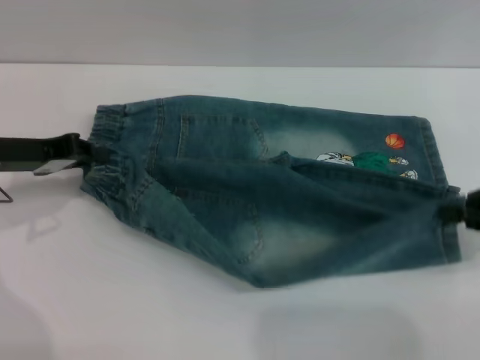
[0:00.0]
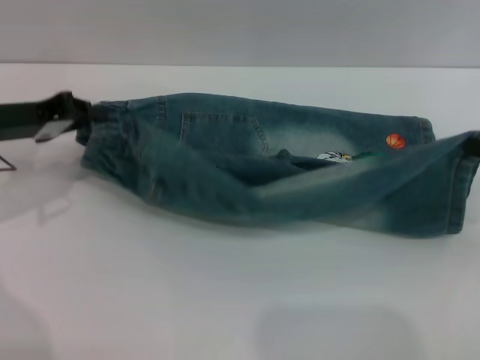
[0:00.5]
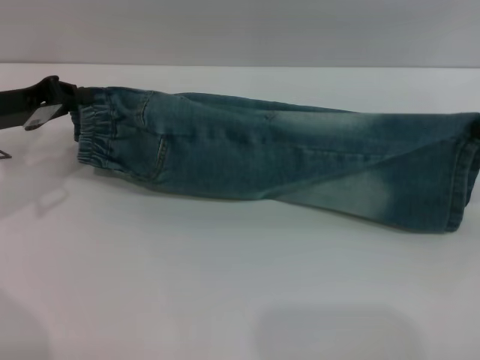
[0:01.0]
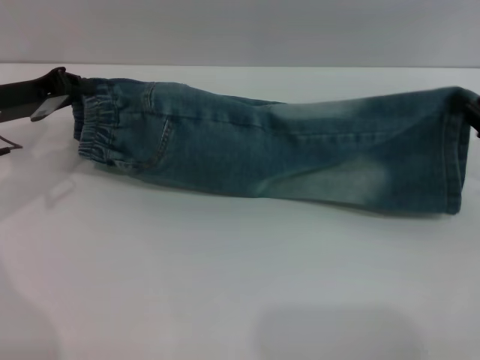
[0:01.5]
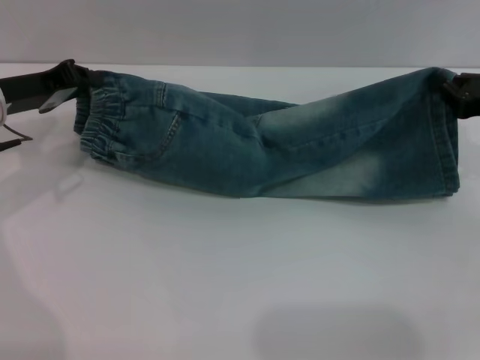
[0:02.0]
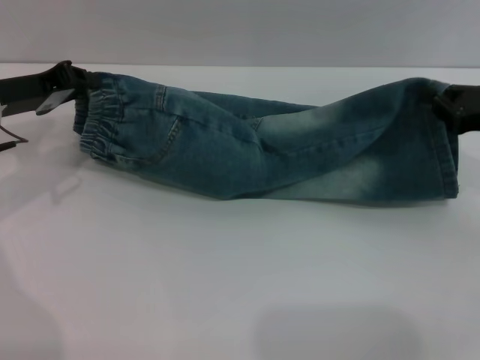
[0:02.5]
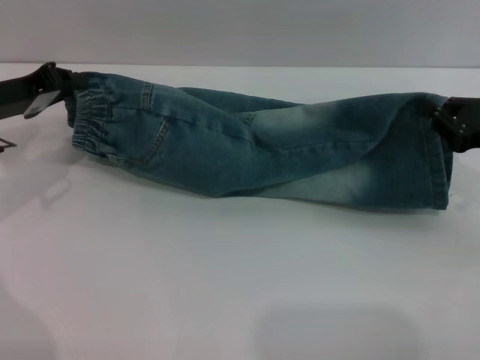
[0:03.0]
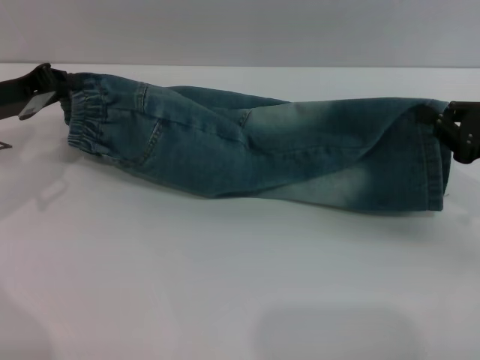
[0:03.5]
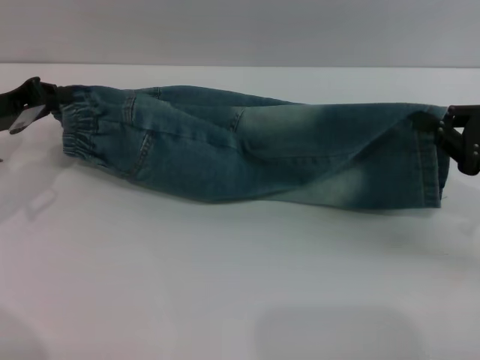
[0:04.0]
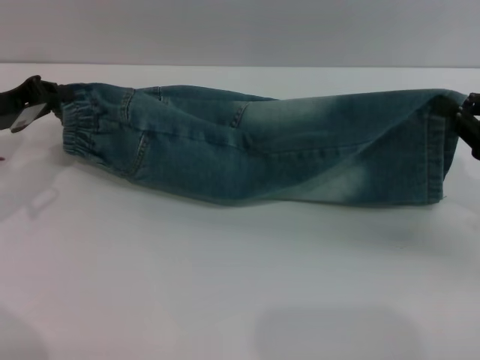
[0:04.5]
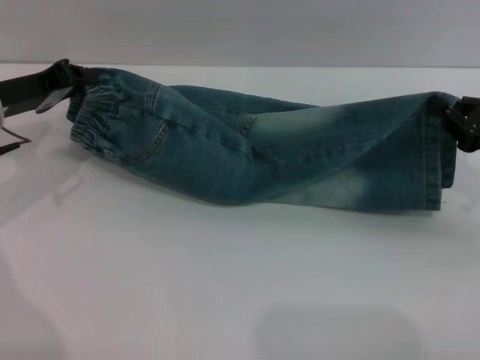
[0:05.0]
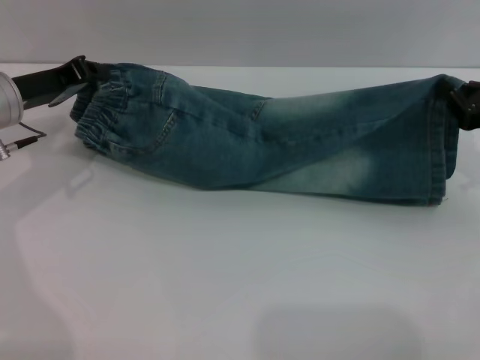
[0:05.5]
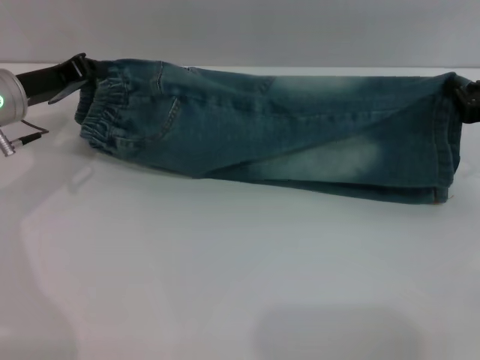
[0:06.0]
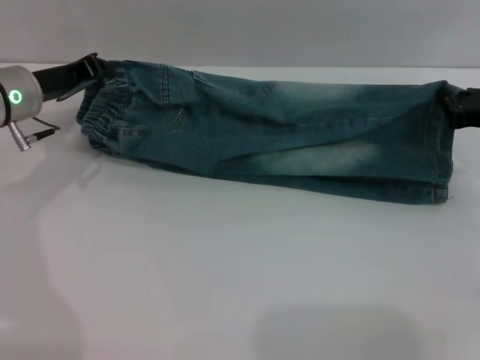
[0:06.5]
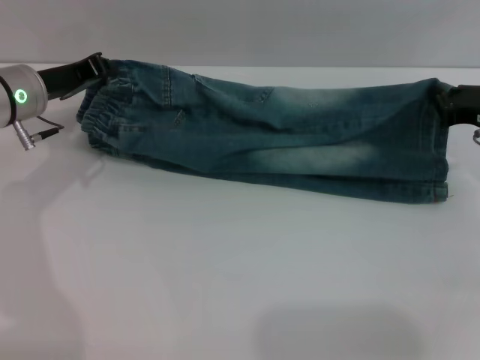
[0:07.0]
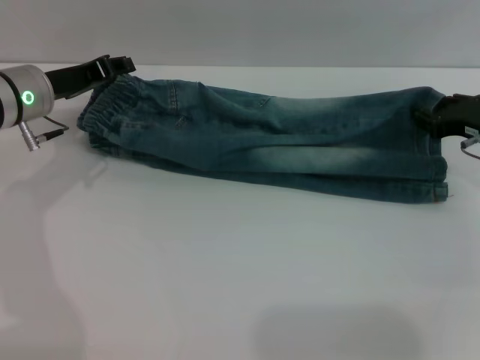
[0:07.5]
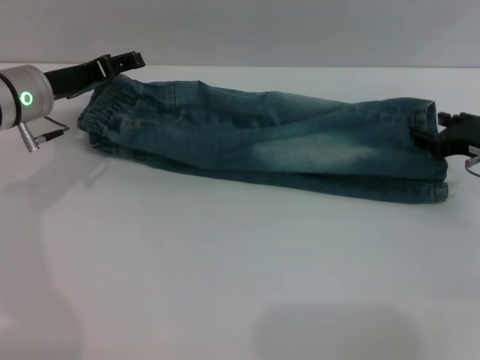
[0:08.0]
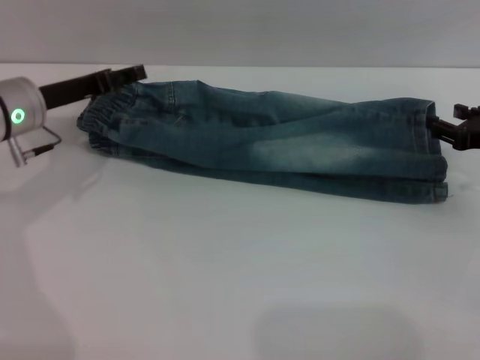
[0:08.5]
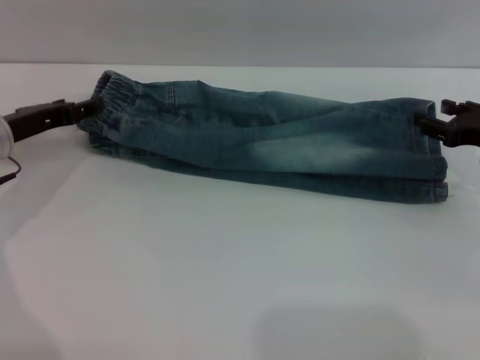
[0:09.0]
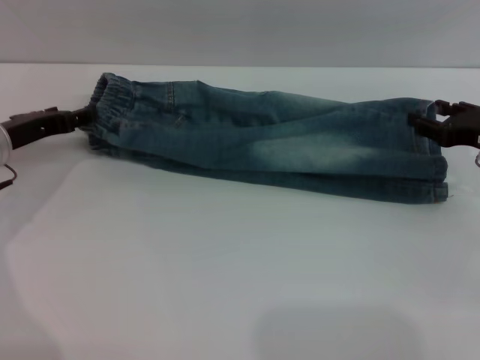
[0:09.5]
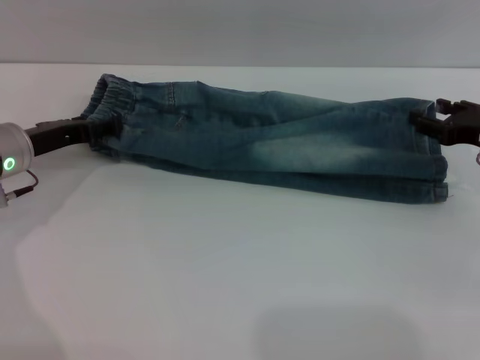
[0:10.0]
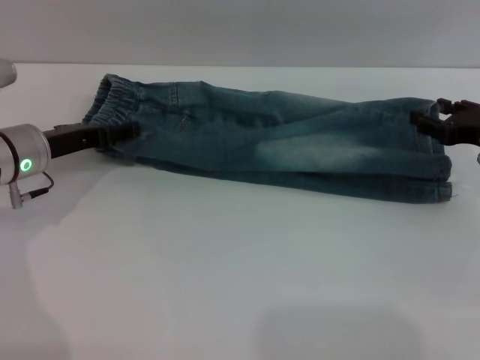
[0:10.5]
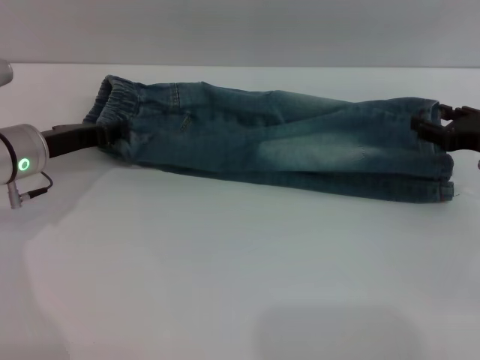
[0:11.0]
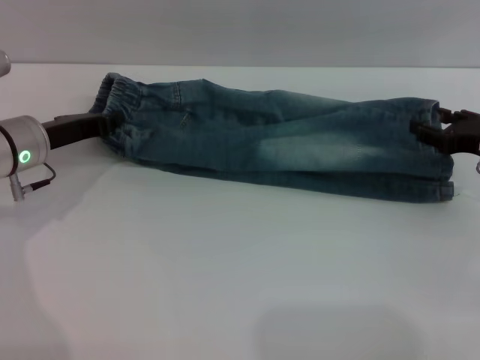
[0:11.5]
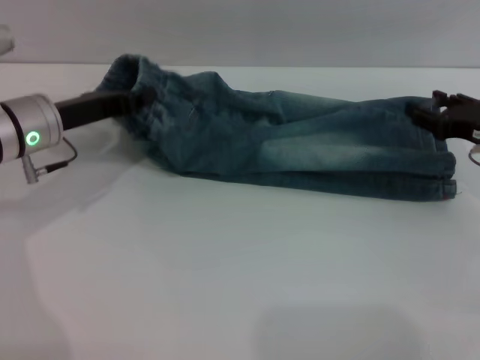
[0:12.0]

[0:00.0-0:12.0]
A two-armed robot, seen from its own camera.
Step, 0:00.0 to 0:08.5: Fold the bottom of the pants upward with both grippers.
0:00.0 to 0:02.0: The right gripper heads forward, covering about 5 cm.
0:02.0 to 0:04.0: The right gripper moves backward, roughly 5 cm.
0:04.0 to 0:06.0: The right gripper travels forward by about 5 cm. Meanwhile the left gripper moves some 5 cm.
0:06.0 to 0:08.0: The right gripper opens. Meanwhile the left gripper opens.
0:08.0 to 0:10.0: The left gripper ends up approximately 5 cm from where it was.
0:10.0 to 0:12.0: The left gripper closes.

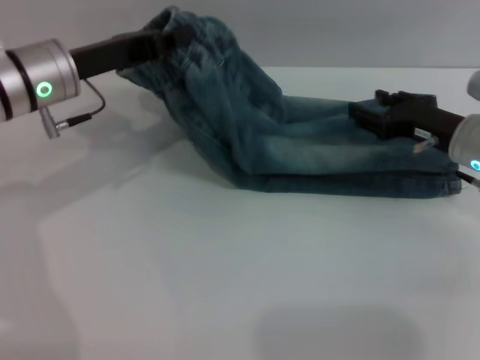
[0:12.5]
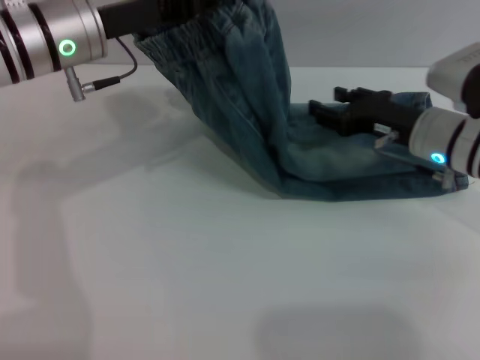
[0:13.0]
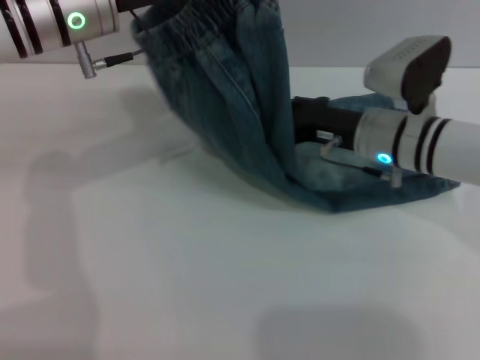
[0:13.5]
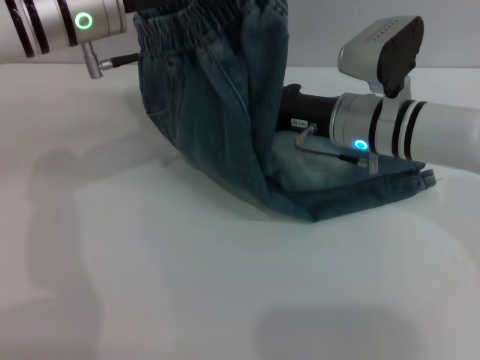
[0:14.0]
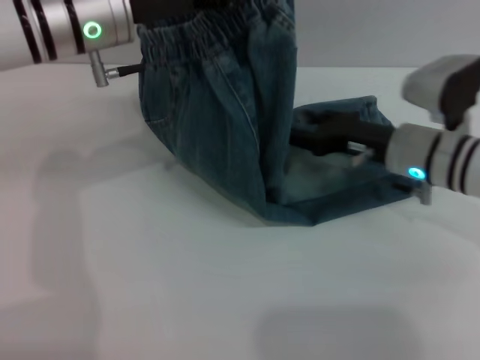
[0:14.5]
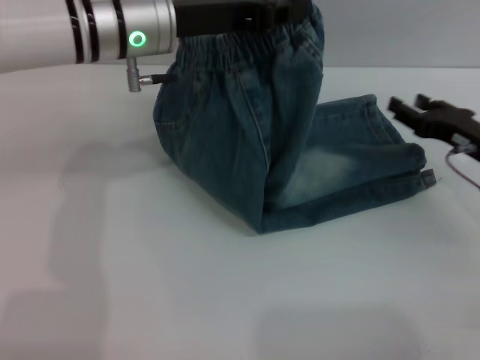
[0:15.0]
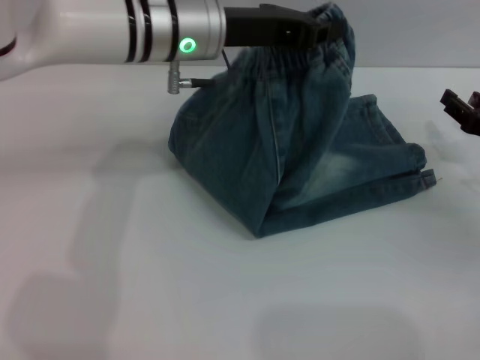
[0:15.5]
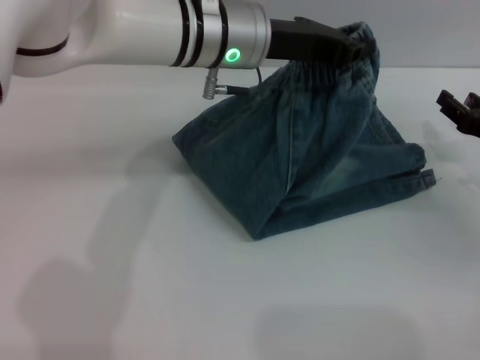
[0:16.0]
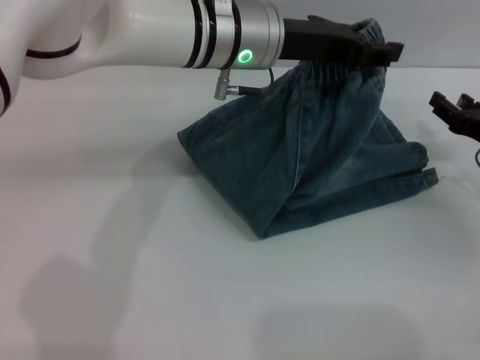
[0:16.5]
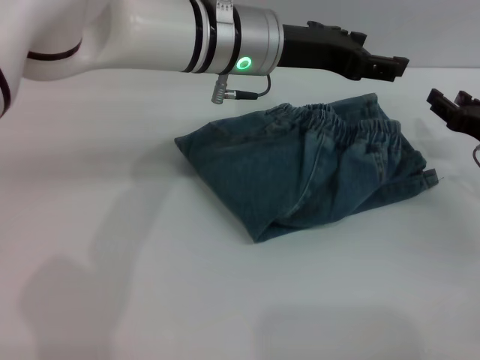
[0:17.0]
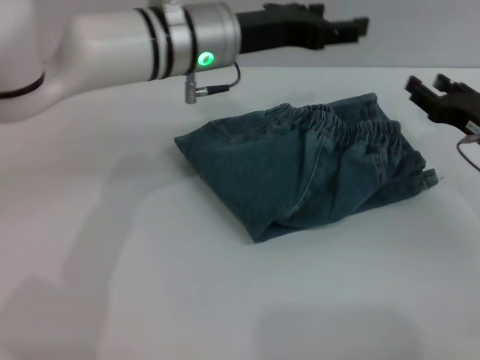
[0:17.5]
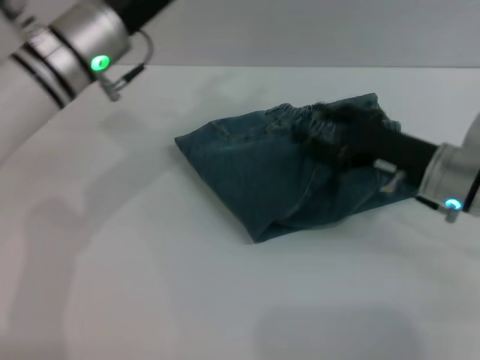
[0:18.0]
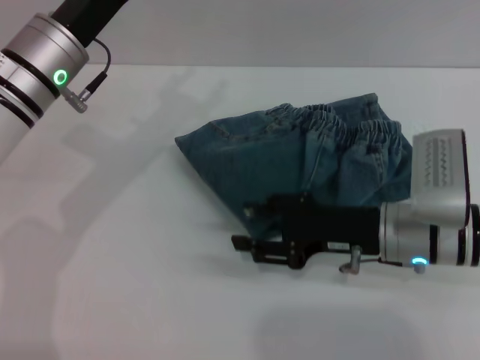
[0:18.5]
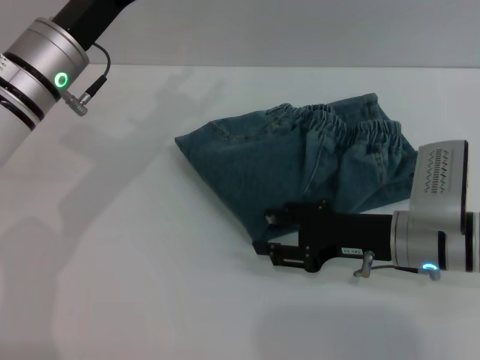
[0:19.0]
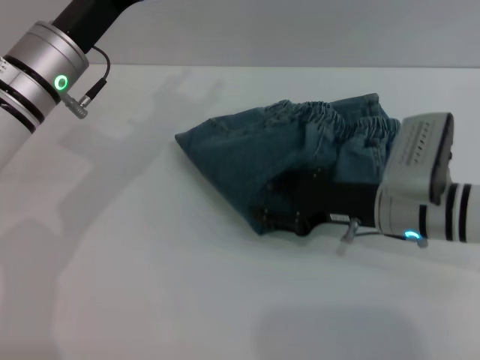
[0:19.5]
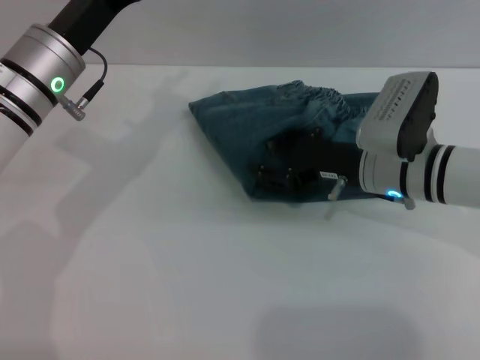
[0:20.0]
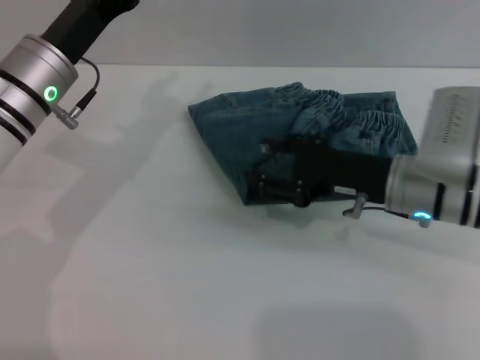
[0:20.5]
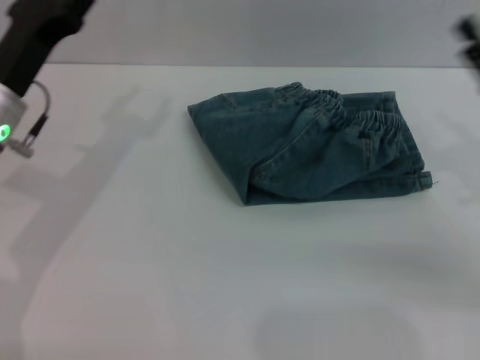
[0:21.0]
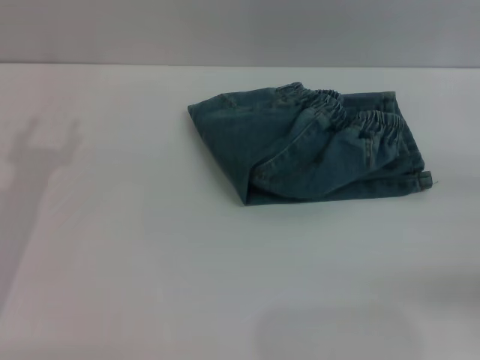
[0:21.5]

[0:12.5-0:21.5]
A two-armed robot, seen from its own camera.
Step, 0:12.5 to 0:17.5: Fold the pants from left to right with the left gripper.
Step, 0:18.0 to 0:20.0: Place the folded trousers onto the center area with the right grippers.
0:12.5 to 0:14.5: The left gripper heads to the right and upward, covering roughly 10 cm; the right gripper heads to the left, covering about 5 cm.
0:14.5 to 0:17.0: Both grippers travel together to the right, about 10 cm. The left gripper opens up.
0:17.0 to 0:19.5: Both grippers travel together to the left, roughly 15 cm.
0:19.5 to 0:21.5: The right gripper travels to the right by approximately 20 cm; the left gripper goes some 15 cm to the left, backward and downward.
